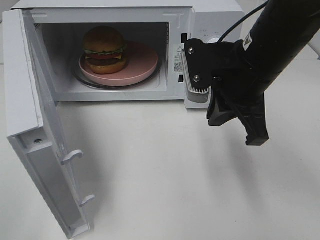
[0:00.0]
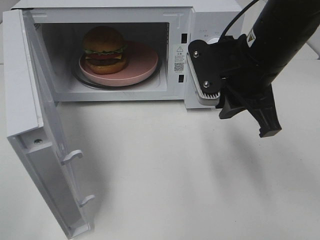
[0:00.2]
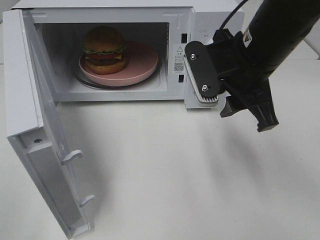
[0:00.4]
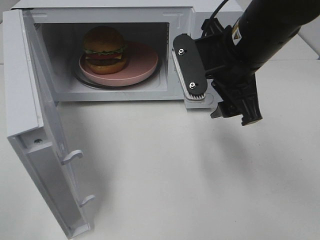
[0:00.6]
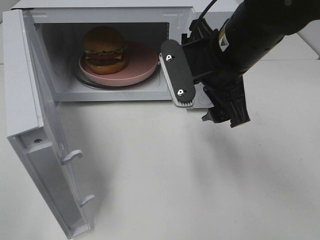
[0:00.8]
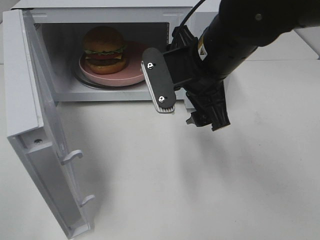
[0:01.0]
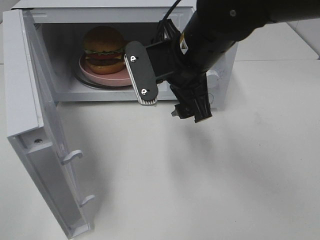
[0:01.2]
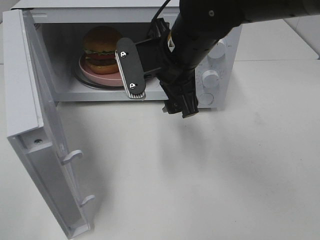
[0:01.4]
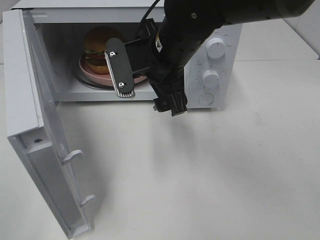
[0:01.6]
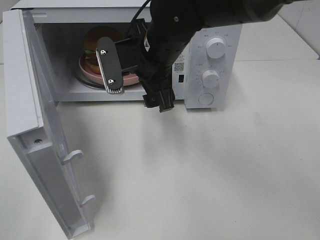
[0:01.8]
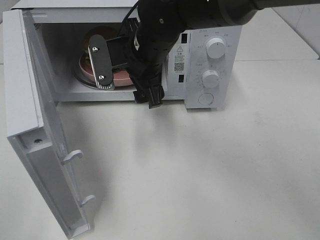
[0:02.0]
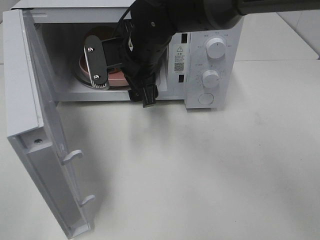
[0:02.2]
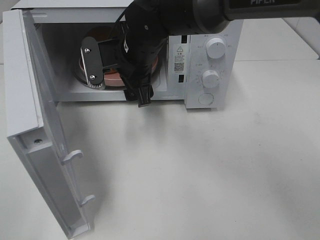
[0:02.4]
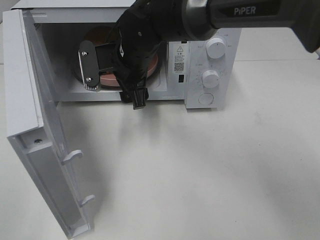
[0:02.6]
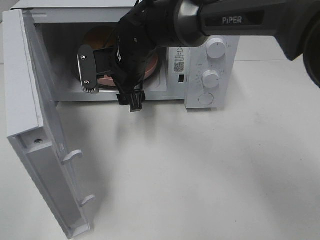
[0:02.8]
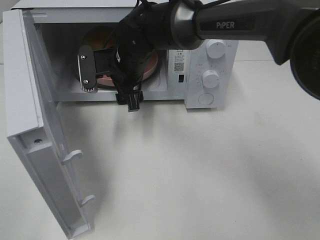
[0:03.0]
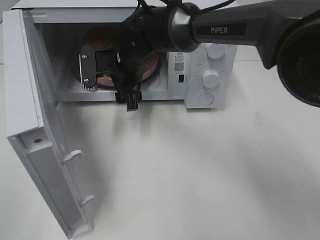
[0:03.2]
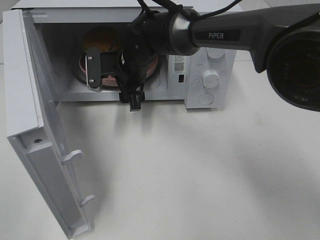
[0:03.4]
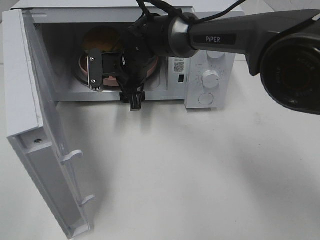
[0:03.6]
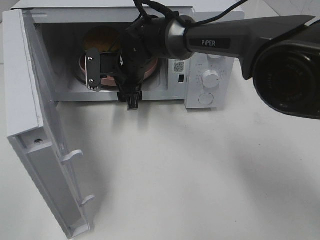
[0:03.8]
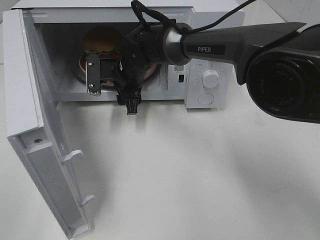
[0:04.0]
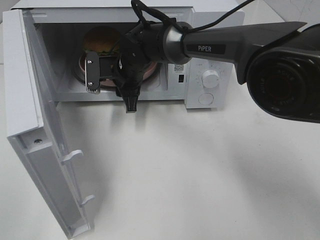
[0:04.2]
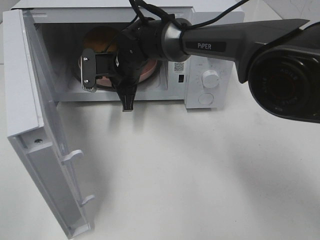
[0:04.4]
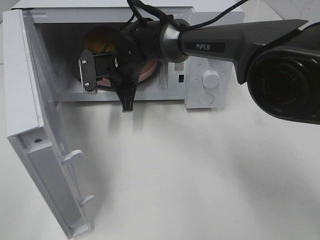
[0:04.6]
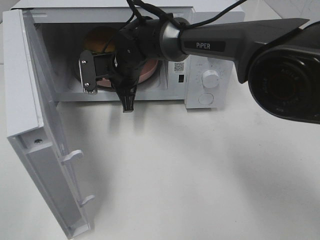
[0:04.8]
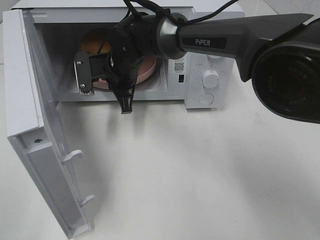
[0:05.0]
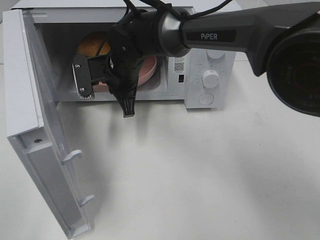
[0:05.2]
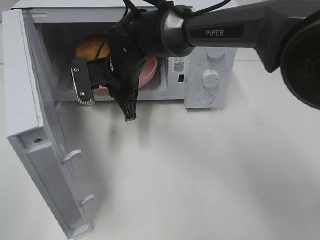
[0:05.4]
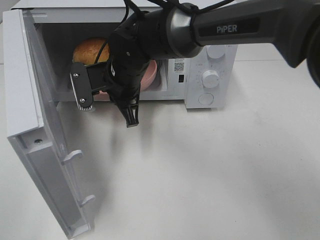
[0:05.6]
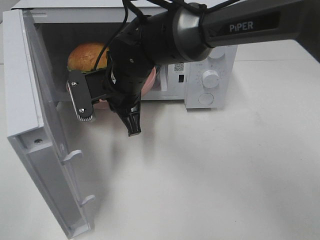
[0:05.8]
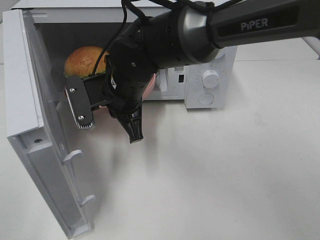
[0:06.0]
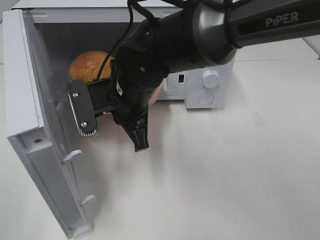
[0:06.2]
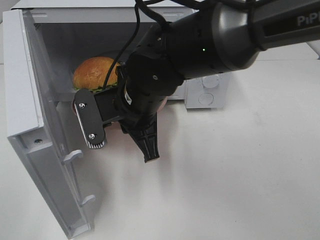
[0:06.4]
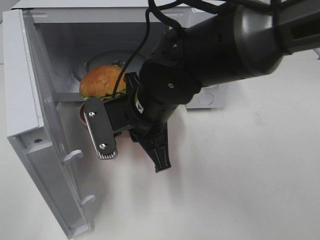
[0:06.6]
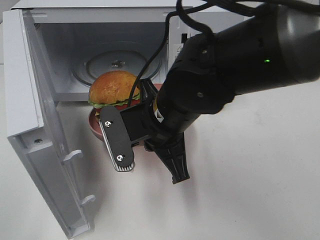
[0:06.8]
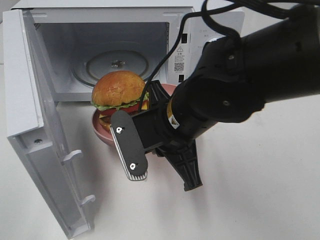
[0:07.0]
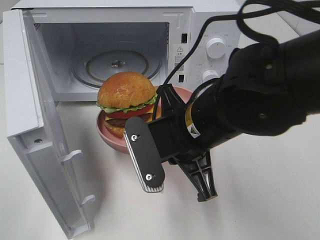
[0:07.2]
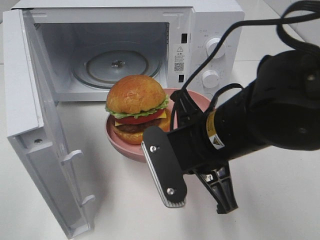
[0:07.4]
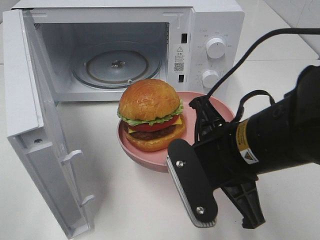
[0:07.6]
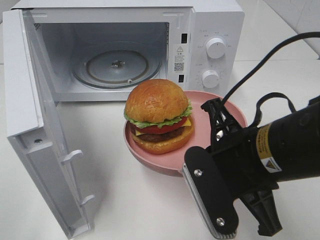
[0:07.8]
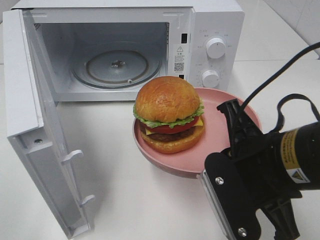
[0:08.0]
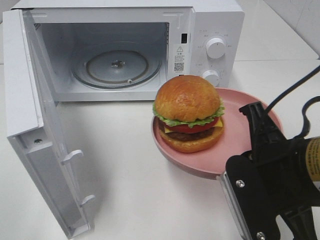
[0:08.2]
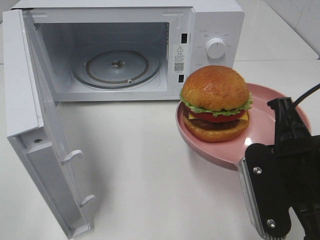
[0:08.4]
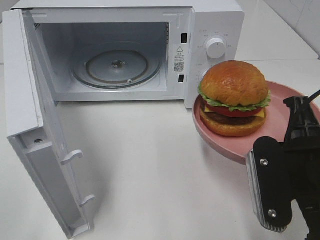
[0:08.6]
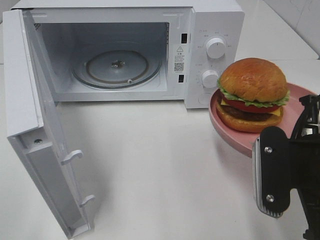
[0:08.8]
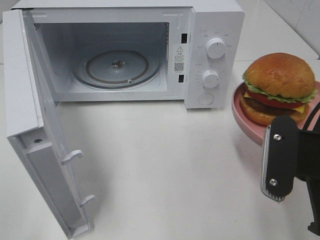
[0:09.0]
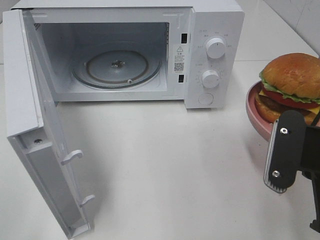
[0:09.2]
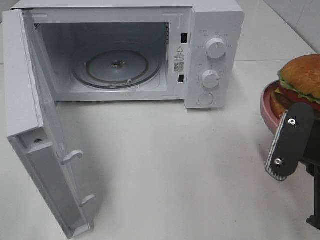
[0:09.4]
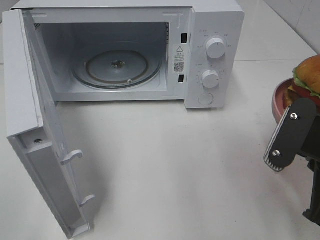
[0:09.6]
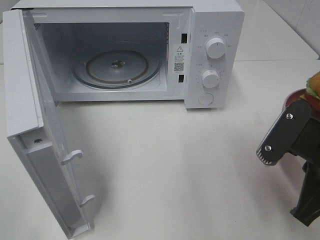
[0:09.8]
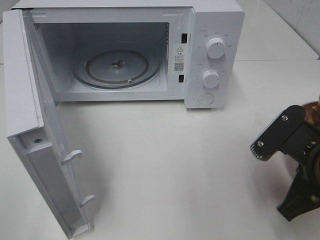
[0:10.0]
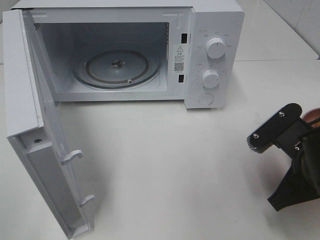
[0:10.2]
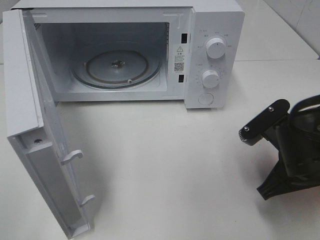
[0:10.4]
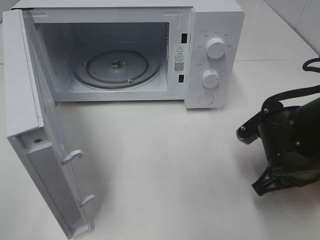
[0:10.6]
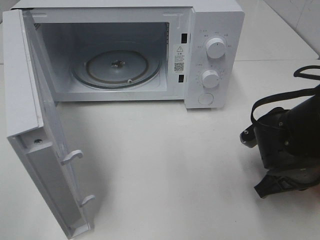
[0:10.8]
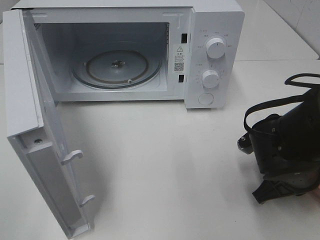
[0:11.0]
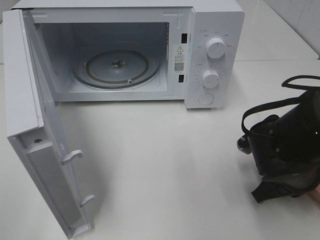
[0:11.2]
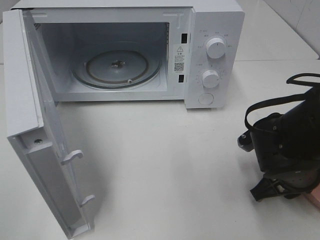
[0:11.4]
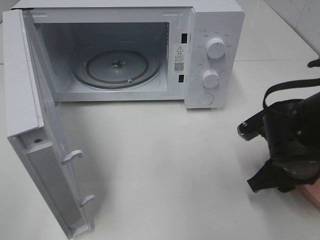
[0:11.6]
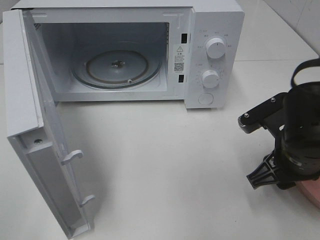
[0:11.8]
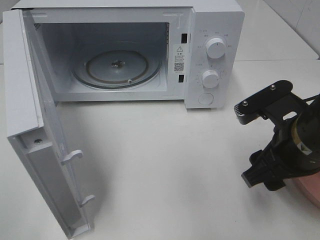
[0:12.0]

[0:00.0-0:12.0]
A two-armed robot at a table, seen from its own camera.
Task of the whole recording: Heat the burger.
Step, 0:00.0 to 0:04.4: Right hand: grab the plate with the hamburger.
Step, 0:04.6 to 0:11.4: Right hand: place the plate on the table.
0:00.0 to 0:01.6: The right gripper is displaced to the left and forward by roughly 10 cm, and opens its fingers.
0:01.6 to 0:03.0: The right gripper heads forward, to the left and downward, covering roughly 10 cm.
0:03.0 to 0:04.4: The right gripper closes up.
0:04.4 to 0:06.0: The right gripper shifts about 10 cm backward.
0:06.0 to 0:07.6: The right gripper moves backward and to the right, about 20 cm.
0:07.6 to 0:09.0: The right gripper is displaced to the right by about 10 cm.
0:09.0 to 0:10.4: The right gripper shifts some 10 cm downward and forward.
0:10.4 to 0:12.0: The right gripper opens.

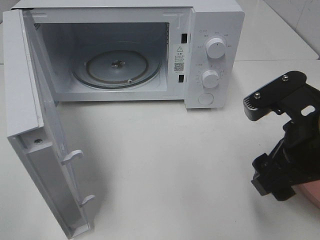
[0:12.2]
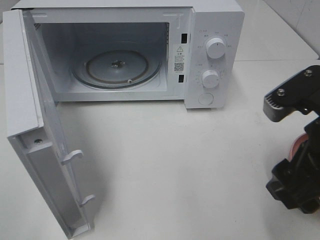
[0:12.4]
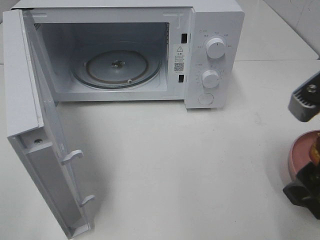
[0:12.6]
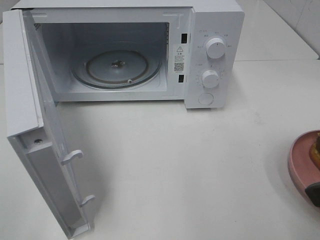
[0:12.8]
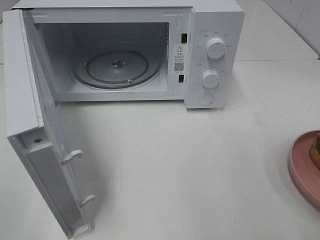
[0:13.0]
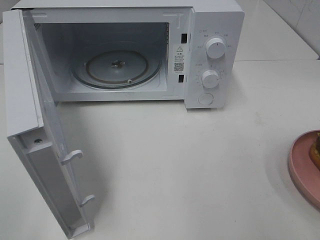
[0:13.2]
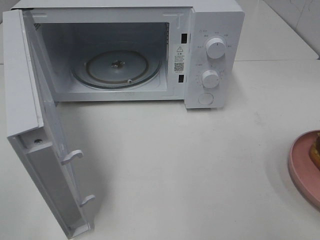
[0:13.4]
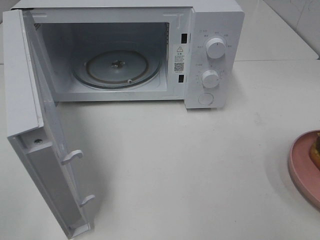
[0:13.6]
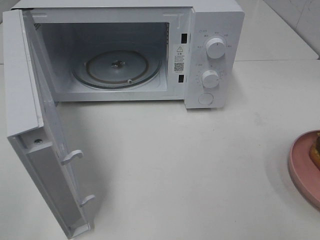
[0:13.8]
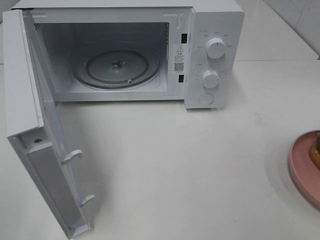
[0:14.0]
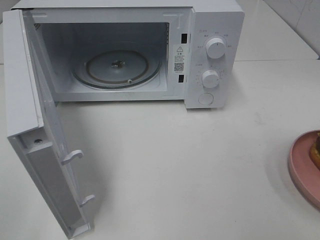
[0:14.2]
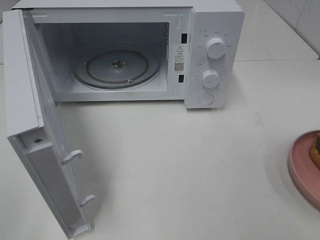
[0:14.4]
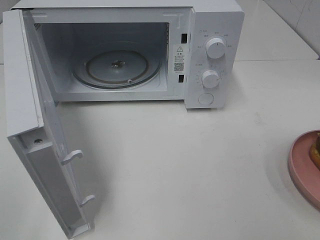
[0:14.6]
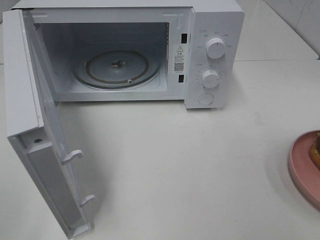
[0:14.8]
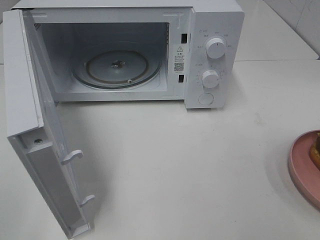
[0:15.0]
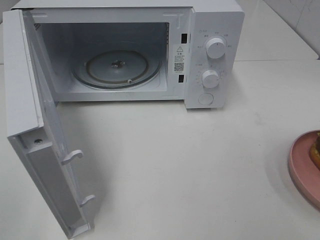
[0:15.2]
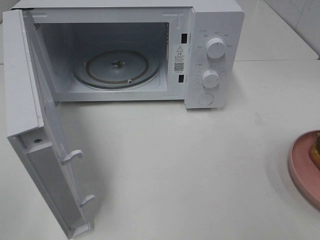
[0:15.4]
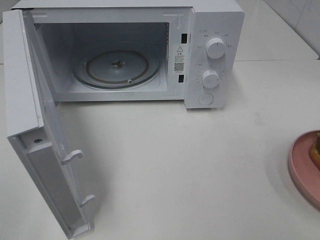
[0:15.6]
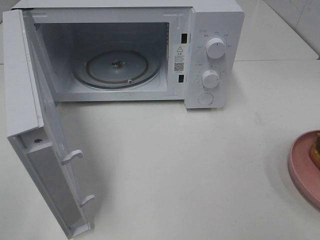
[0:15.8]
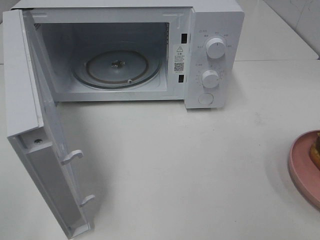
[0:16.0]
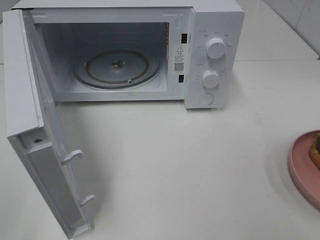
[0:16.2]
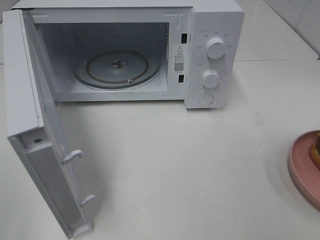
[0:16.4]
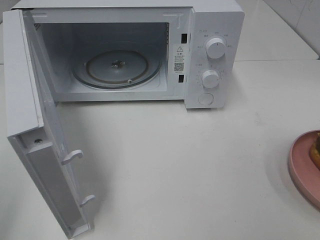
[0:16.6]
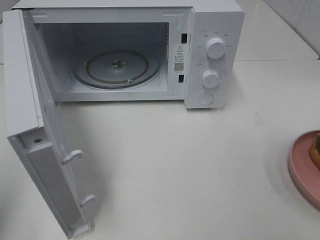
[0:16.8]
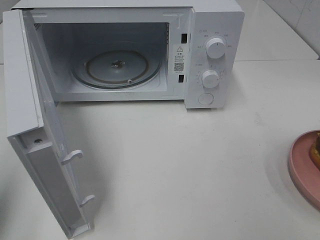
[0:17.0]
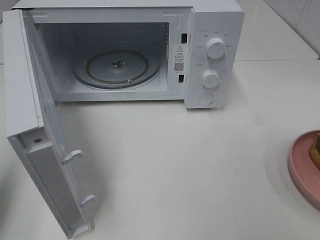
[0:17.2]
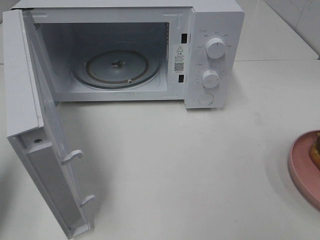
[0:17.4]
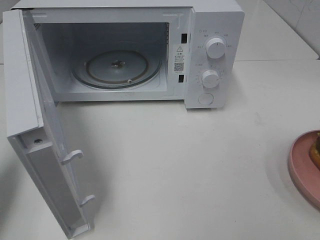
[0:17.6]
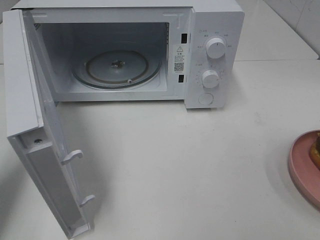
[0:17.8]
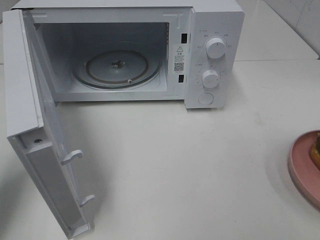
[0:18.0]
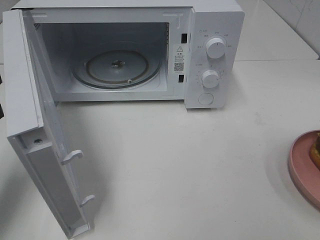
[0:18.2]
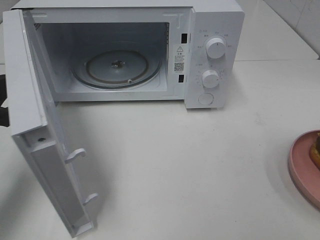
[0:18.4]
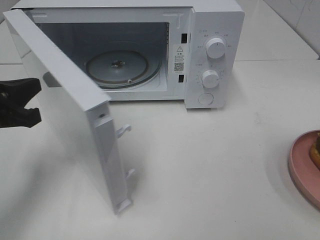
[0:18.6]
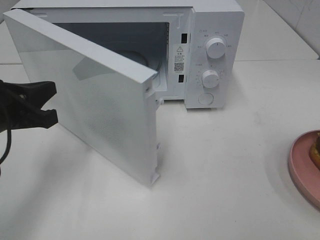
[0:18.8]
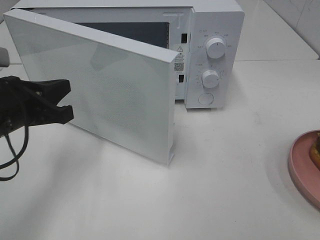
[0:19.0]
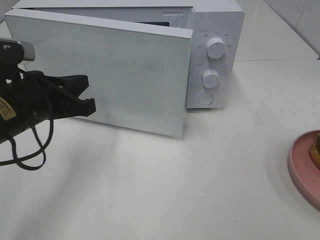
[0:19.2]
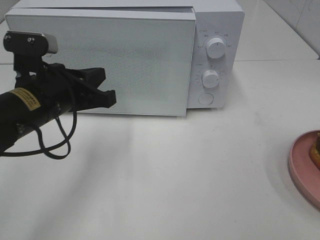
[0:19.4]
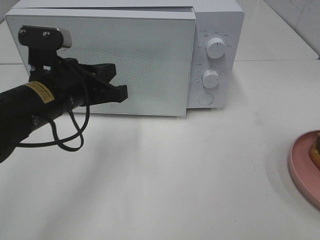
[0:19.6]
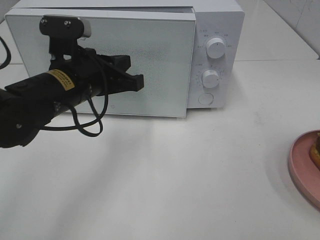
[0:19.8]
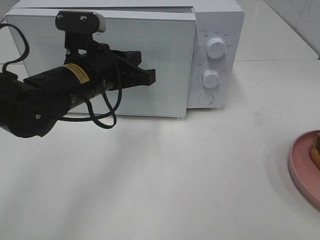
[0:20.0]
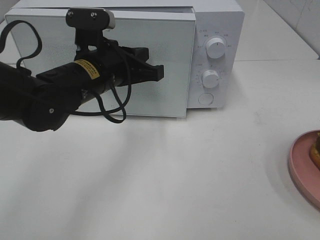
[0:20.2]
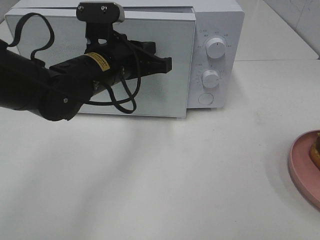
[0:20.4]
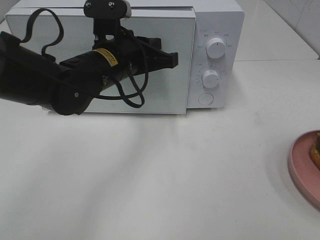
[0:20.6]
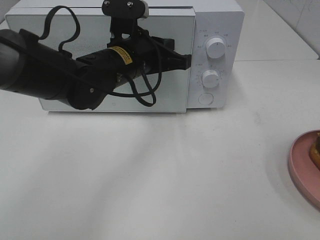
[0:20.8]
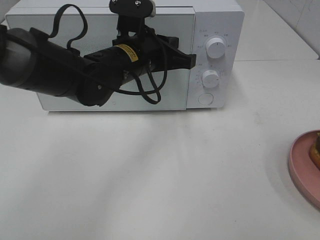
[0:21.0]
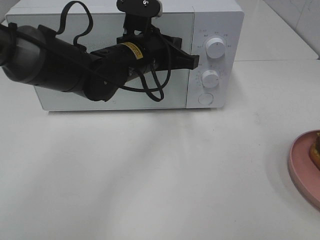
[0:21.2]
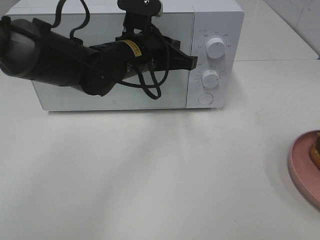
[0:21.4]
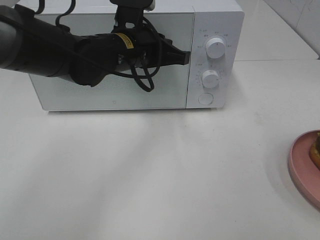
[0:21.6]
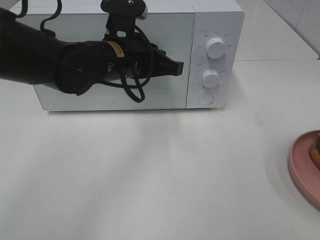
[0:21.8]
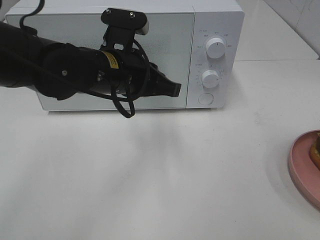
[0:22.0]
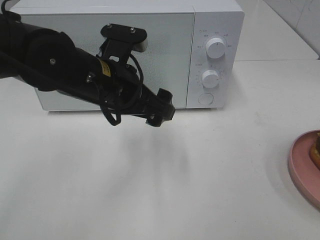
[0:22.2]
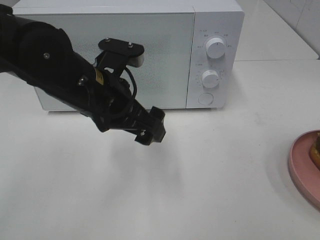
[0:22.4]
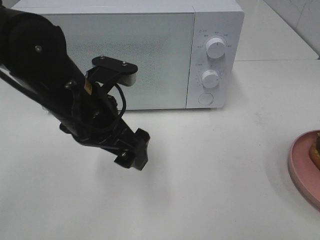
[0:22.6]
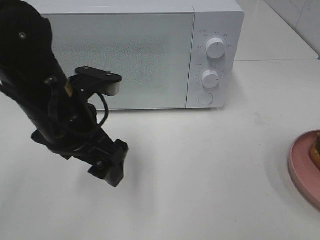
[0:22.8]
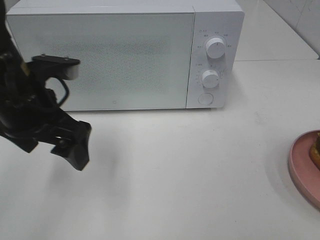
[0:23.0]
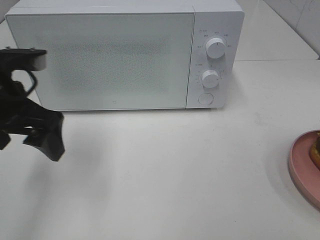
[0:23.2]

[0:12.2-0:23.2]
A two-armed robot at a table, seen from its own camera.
Task of the whole recording: Heat the burger.
Step, 0:12.2 to 0:21.6: Left hand: close the microwave door.
0:12.2 to 0:13.8: The right gripper shifts roughly 20 cm backward, to the right and upward.
0:15.4 to 0:17.0: The left gripper shifts approximately 10 cm forward, and closes its fingers.
0:17.0 to 0:18.4: The left gripper travels forward and downward by roughly 15 cm.
0:18.4 to 0:20.0: The left gripper heads to the right and forward, covering roughly 20 cm.
0:20.0 to 0:21.6: The left gripper heads to the right and forward, covering some 10 cm.
0:21.6 to 0:23.2: The left gripper travels to the left and backward by some 20 cm, and opens.
